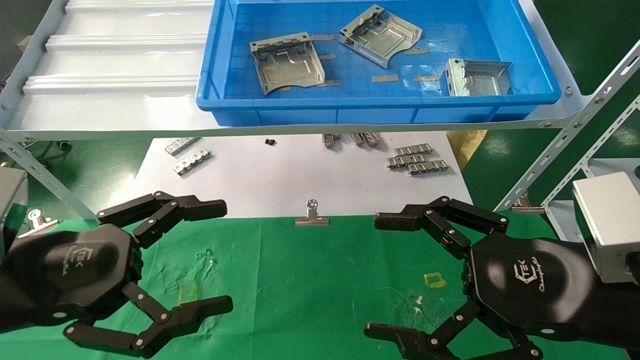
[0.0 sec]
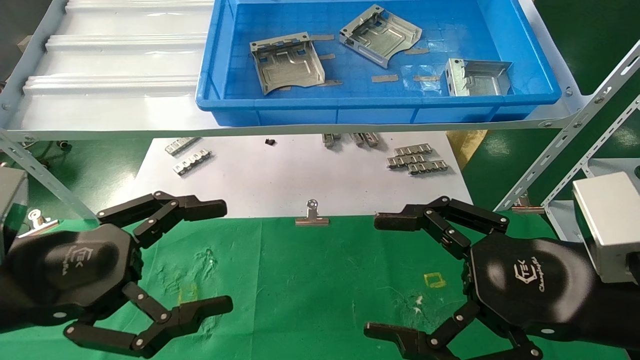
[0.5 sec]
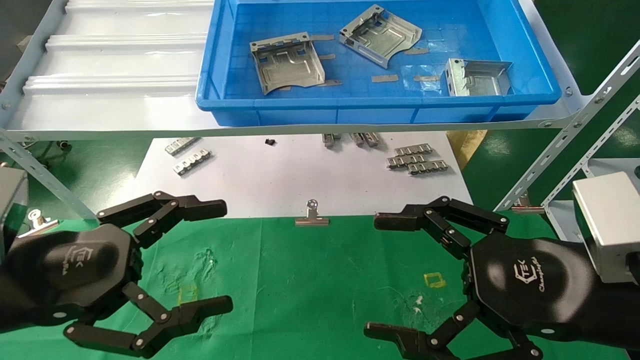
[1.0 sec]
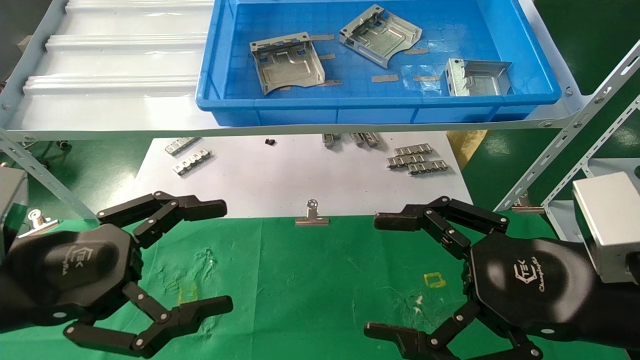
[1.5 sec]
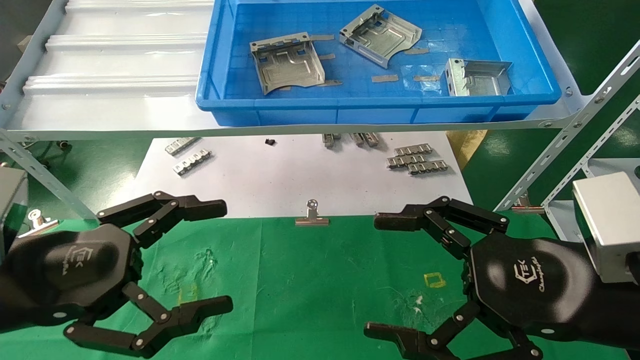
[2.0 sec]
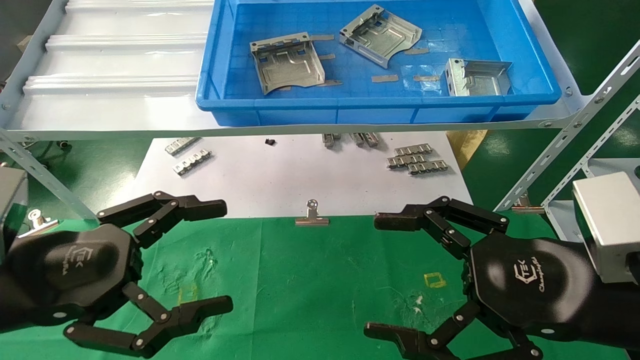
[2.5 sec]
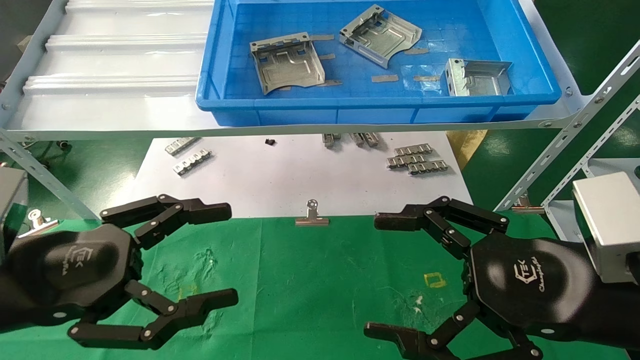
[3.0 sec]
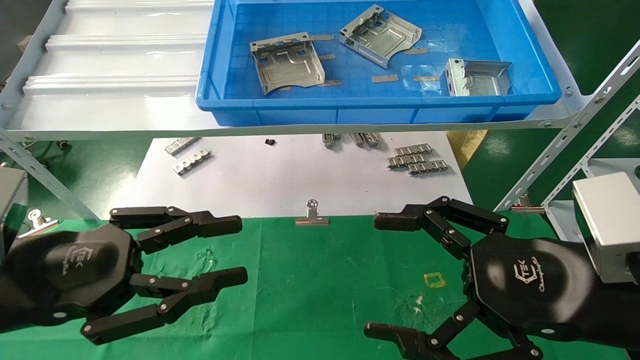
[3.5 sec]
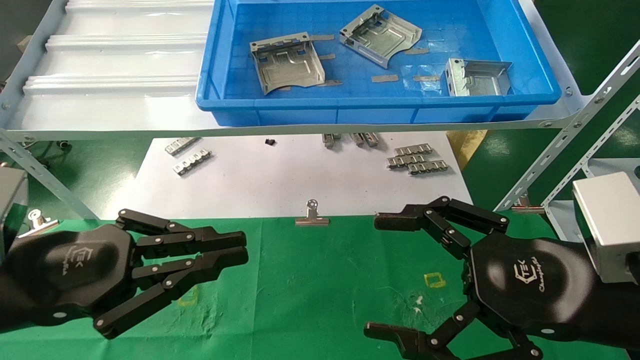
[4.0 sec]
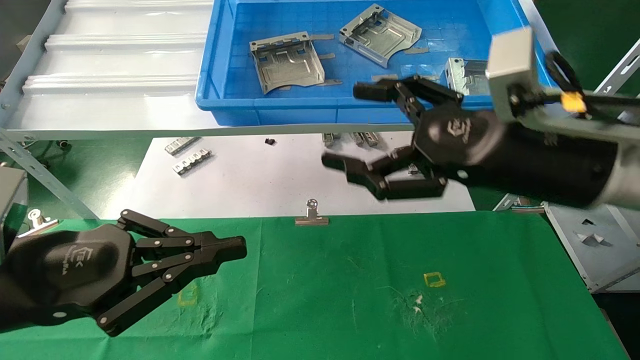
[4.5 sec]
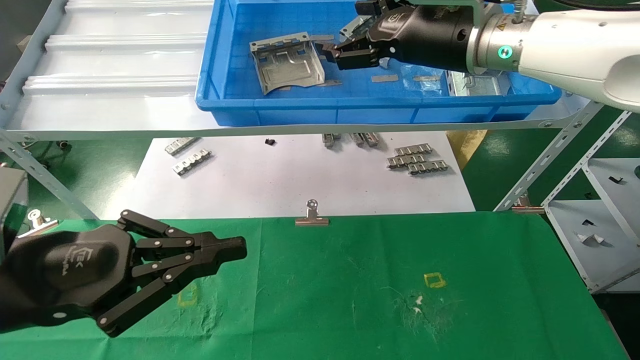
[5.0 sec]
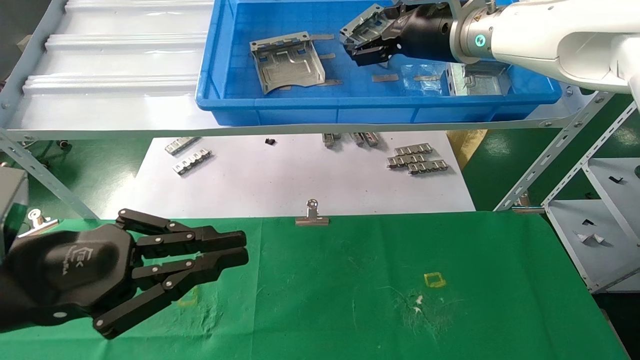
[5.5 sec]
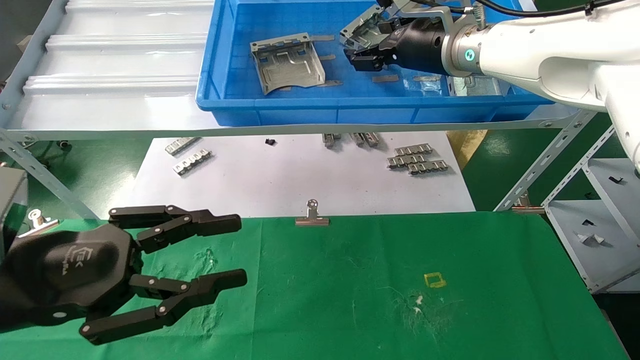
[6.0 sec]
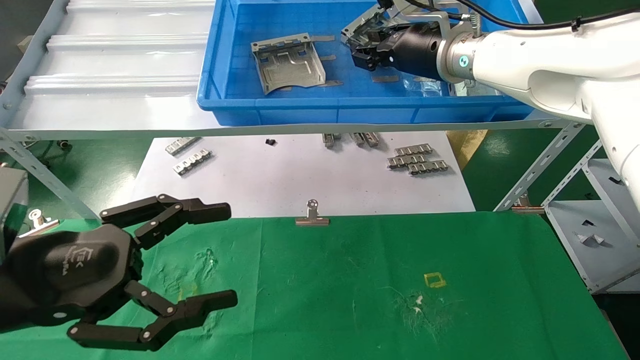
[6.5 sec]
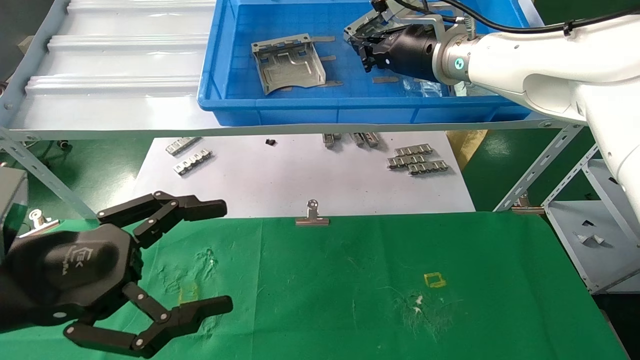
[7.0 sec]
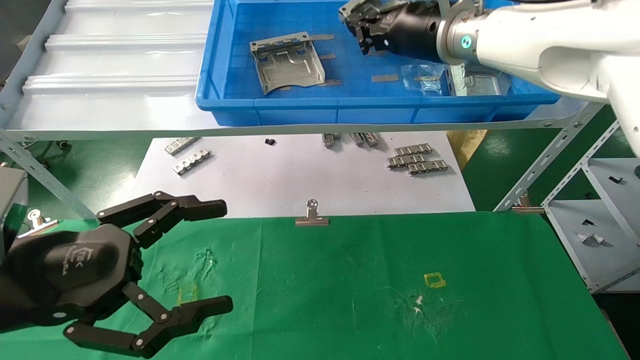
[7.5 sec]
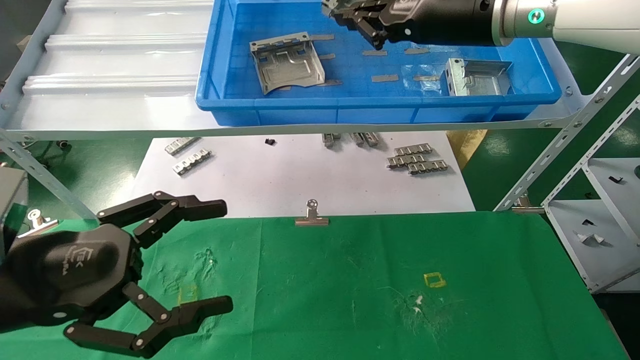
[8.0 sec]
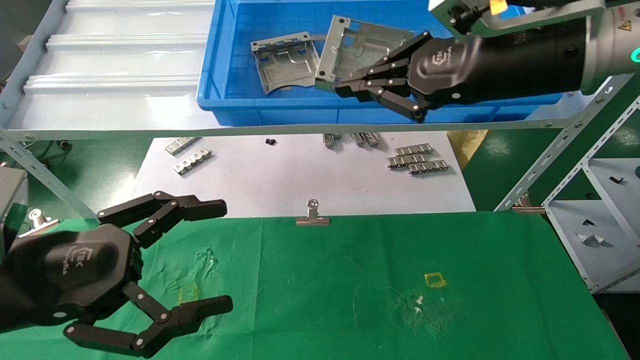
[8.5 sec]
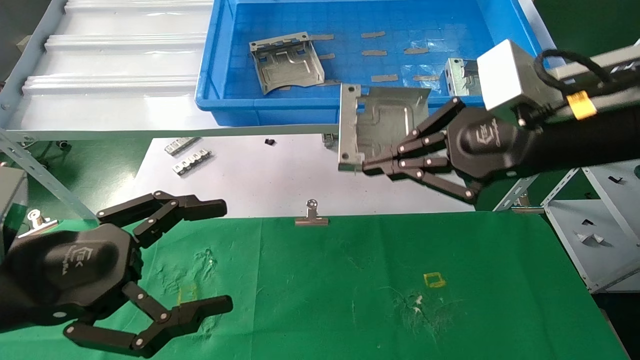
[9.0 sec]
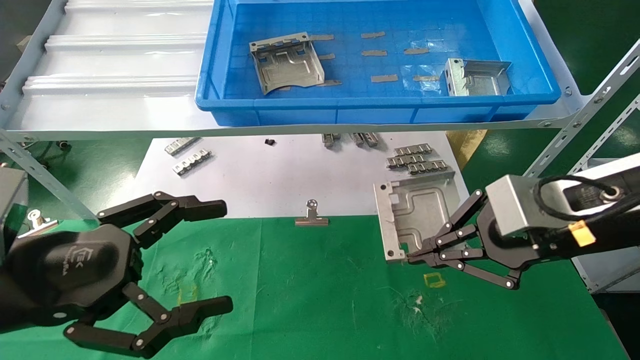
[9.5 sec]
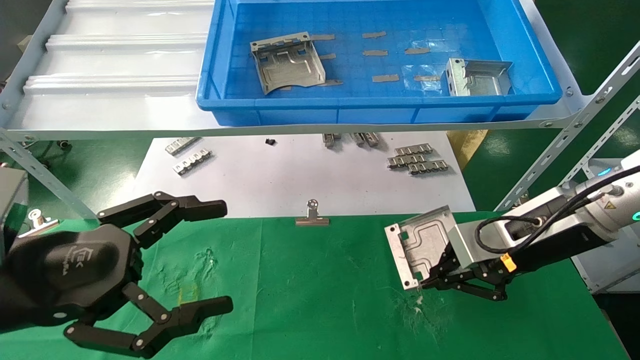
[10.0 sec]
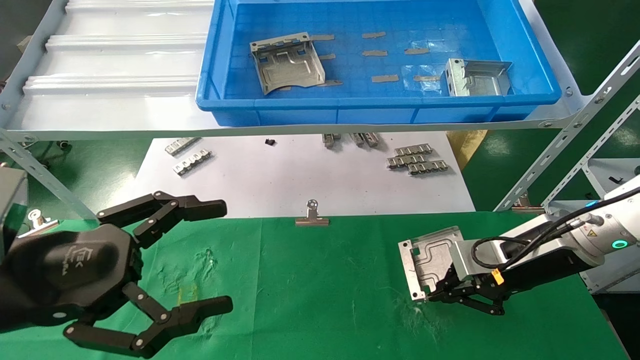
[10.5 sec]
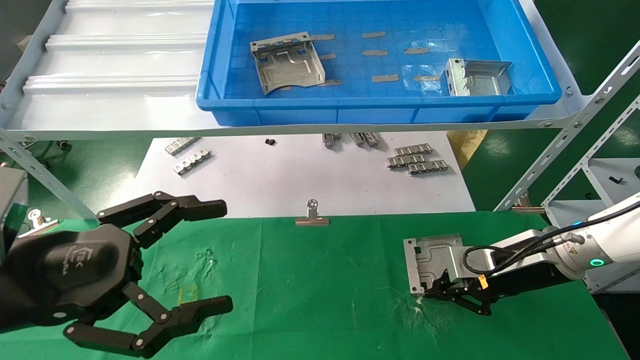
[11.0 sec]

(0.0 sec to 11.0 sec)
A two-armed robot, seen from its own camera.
Task of the whole recording: use the mechanical arm to pick up the parts and place them on the table.
Step, 4.5 sec - 6.5 sec: Pick up the hard drive bracket from the feeding area.
0.0 sec - 2.0 sec: The two grippers keep their place.
2.0 sec - 3.5 sec: The left gripper closes its fingers.
3.5 sec - 5.5 sec: The right gripper travels forward and upward by some 30 cm. Meanwhile the left gripper closes.
5.5 sec - 7.5 sec: The right gripper closes. The left gripper opens its fingers.
7.5 sec - 9.0 sec: The right gripper is displaced backward, to the right and downward by roughly 20 cm.
9.0 sec - 11.0 sec: The right gripper is displaced downward and forward by roughly 25 cm.

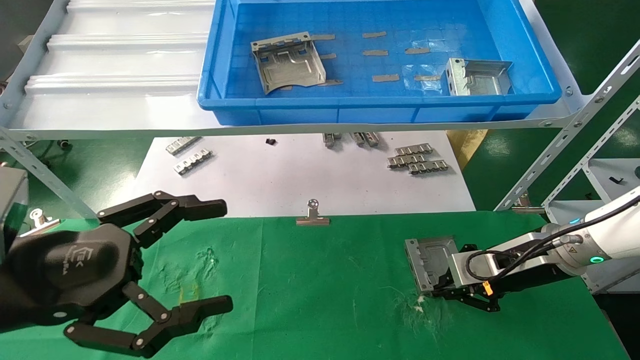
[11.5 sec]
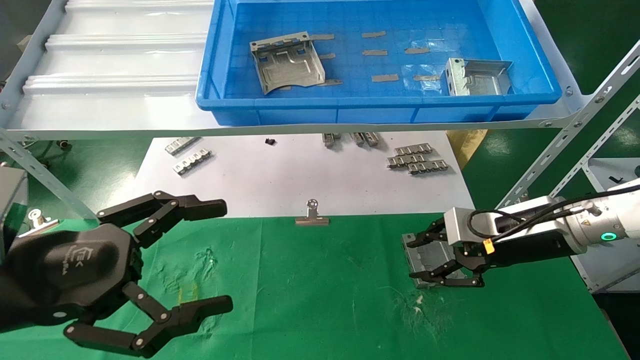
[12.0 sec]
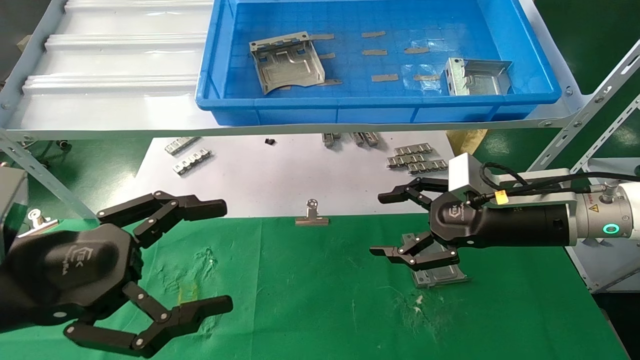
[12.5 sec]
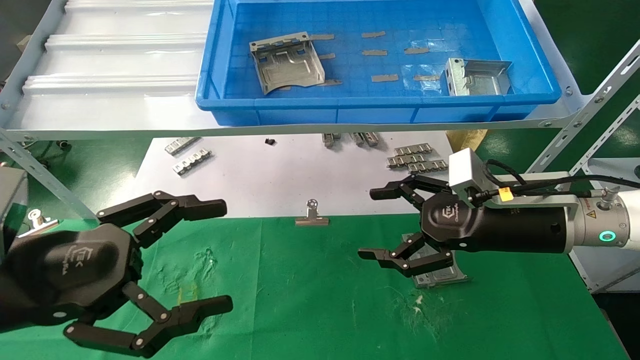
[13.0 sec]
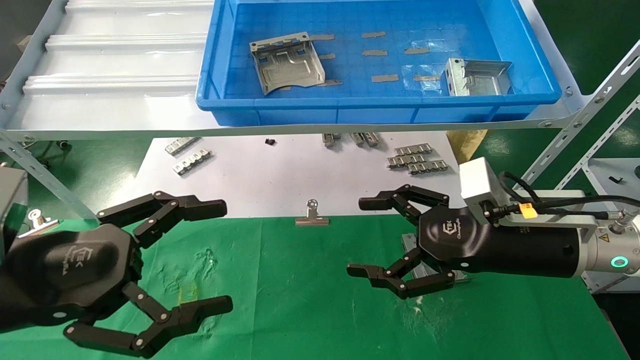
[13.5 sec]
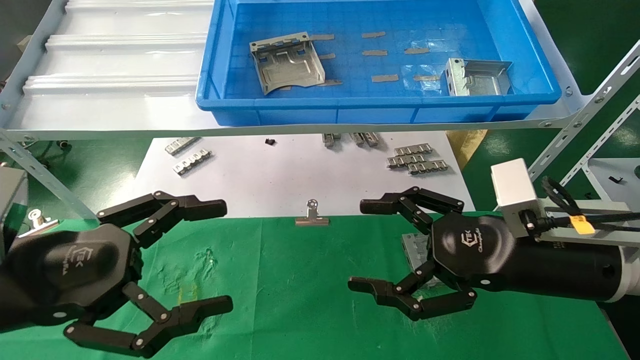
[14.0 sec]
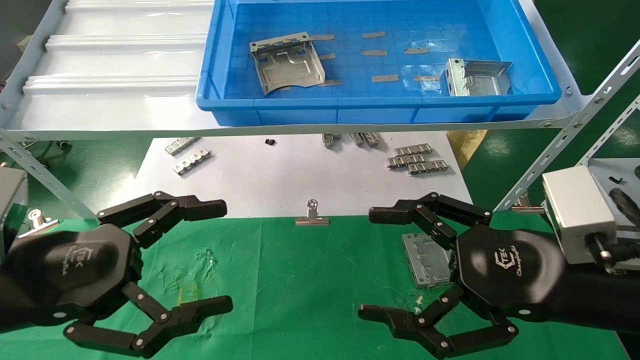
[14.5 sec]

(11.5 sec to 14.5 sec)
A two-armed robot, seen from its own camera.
Task of the whole recording: use the mechanical arm to pick up the parts and place them on the table.
11.5 sec - 13.0 sec: The right gripper is displaced to the left and upward by some 10 cm, and opens its fingers.
13.0 sec - 14.5 sec: The right gripper is displaced backward by about 10 cm.
